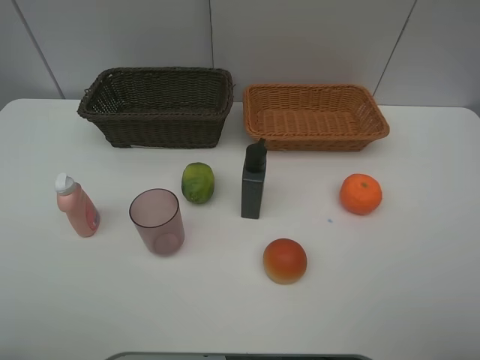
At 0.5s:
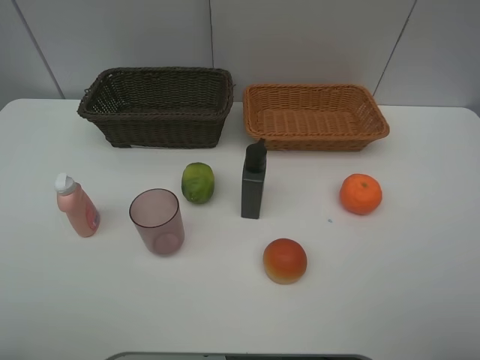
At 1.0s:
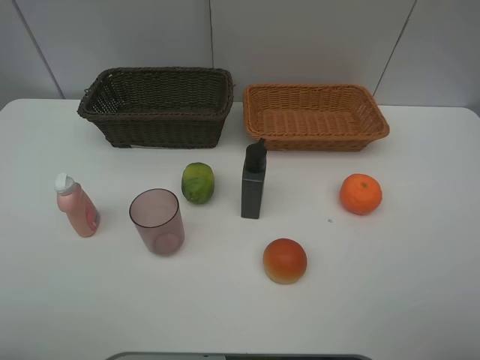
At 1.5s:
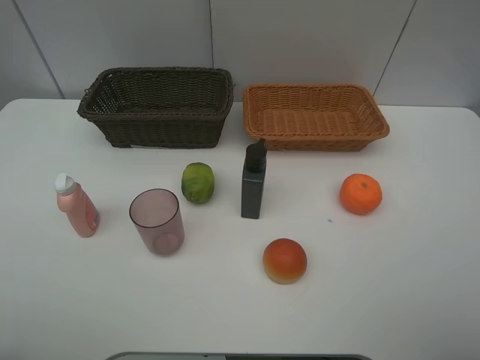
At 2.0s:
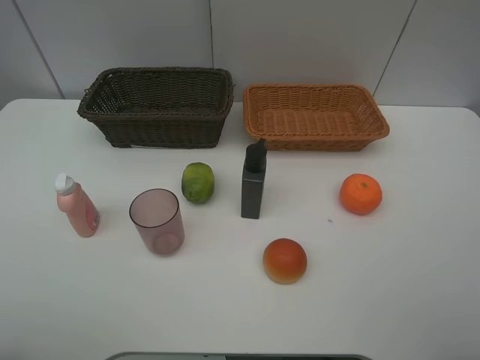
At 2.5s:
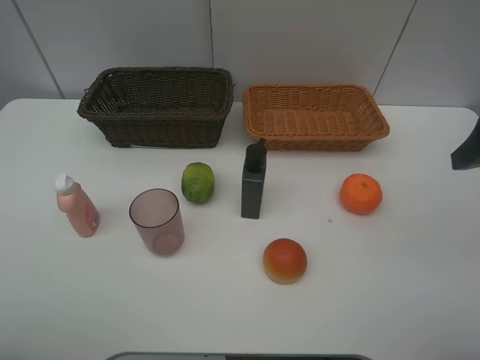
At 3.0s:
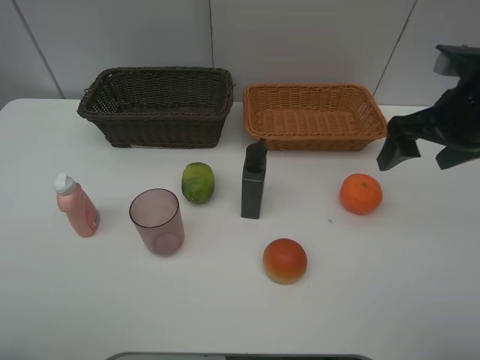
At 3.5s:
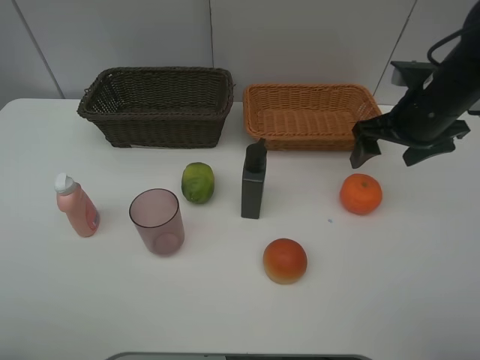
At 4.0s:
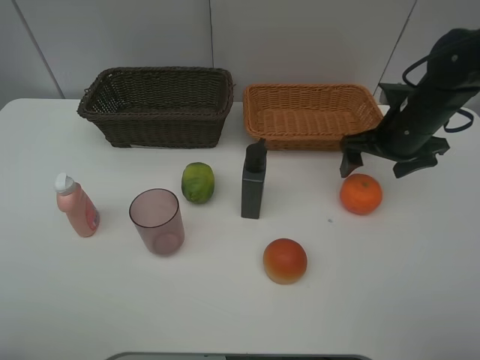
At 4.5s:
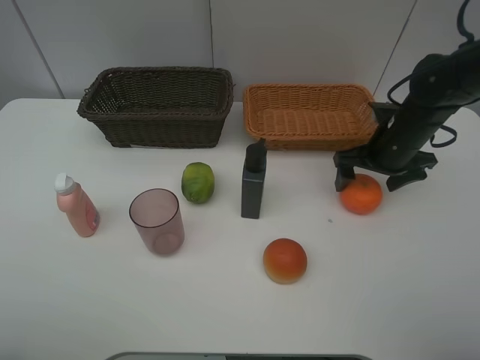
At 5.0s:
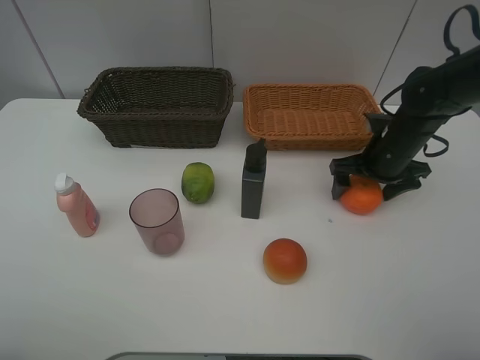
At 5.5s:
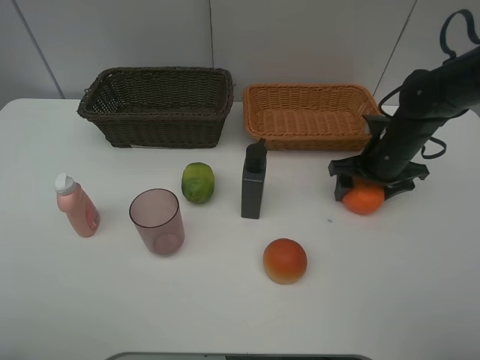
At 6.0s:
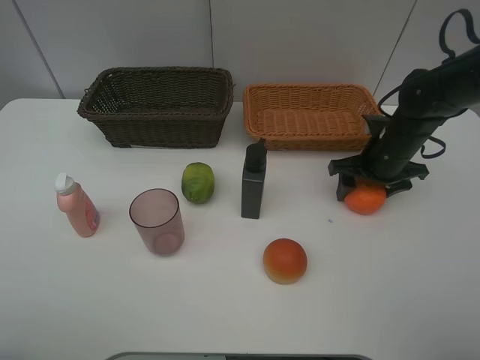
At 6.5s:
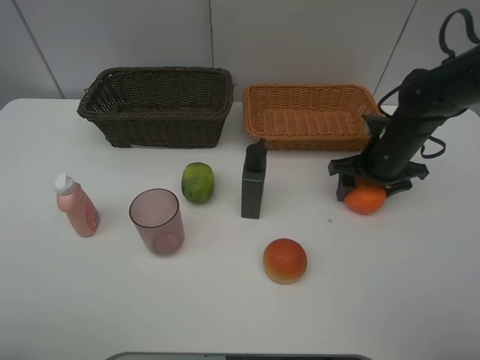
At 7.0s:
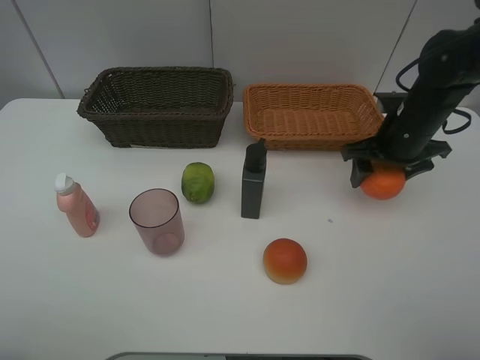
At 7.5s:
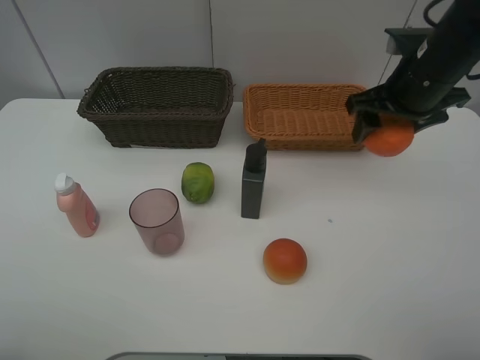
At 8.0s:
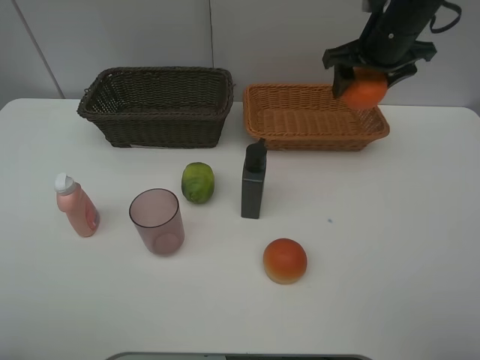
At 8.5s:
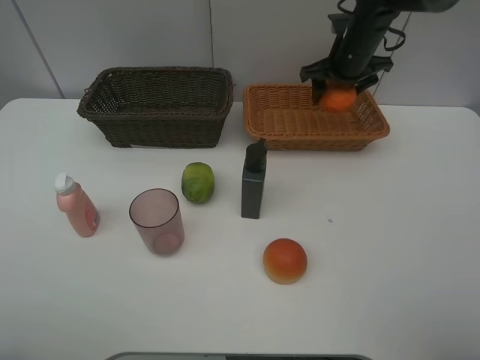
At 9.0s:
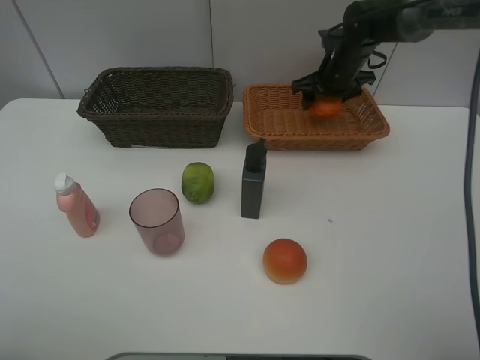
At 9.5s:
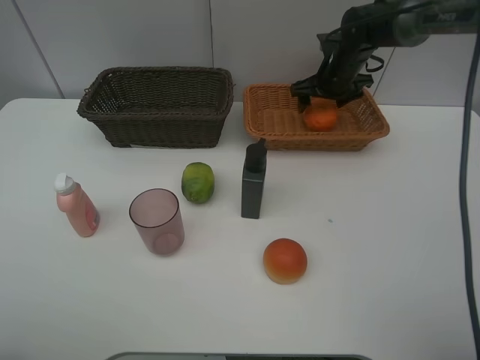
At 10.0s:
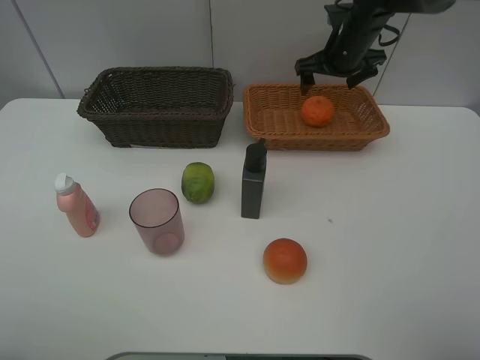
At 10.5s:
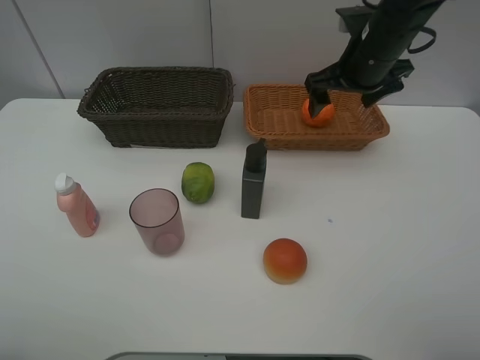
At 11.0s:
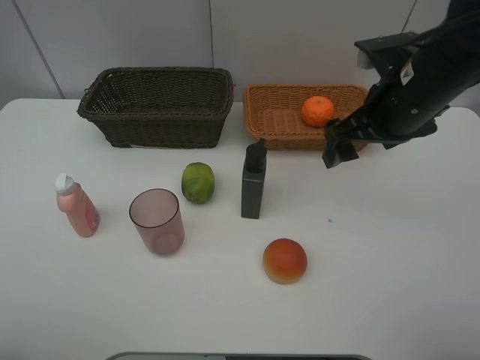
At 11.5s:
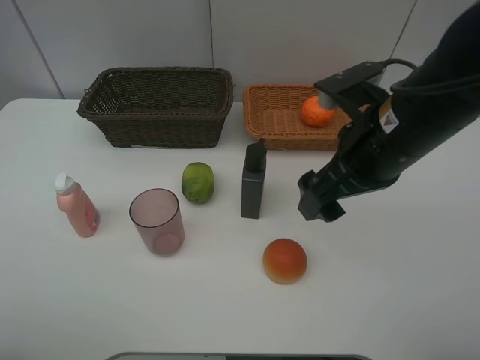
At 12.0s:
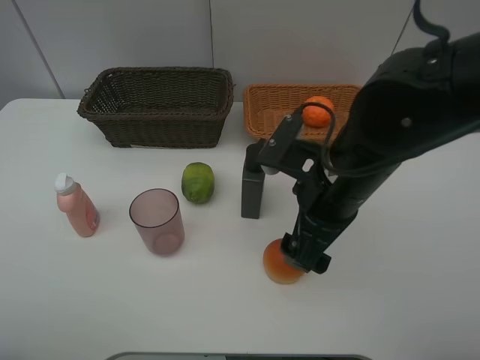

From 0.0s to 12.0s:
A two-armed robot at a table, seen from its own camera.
Task of the whole recording: place multiple objects separately in different baskets.
From 2.0s to 4.0s: The right gripper moves forward and downward, about 30 cm.
From 4.0s to 6.0s: The right gripper travels downward by about 5 cm, and closes its fingers.
From 6.0s to 8.0s: The right gripper travels upward by some 15 cm.
From 8.0s to 10.0s: The right gripper is displaced forward and downward by roughly 10 cm, and opens its fingers.
From 10.0s to 12.0s: The right gripper heads backward, covering roughly 30 cm.

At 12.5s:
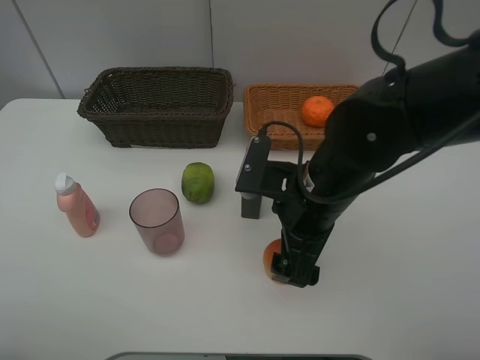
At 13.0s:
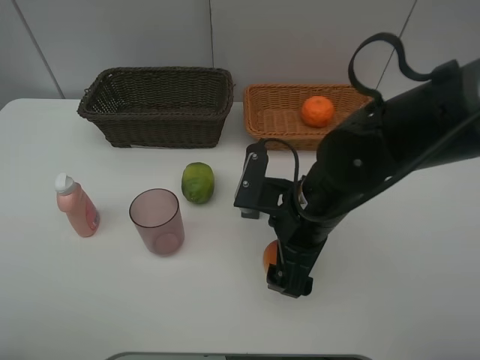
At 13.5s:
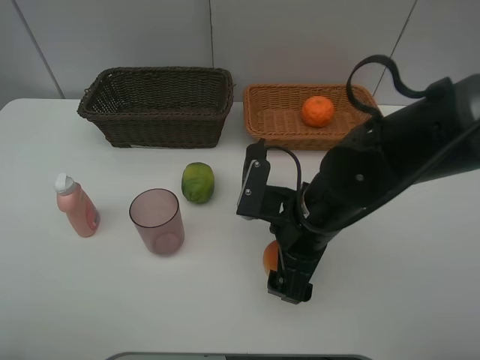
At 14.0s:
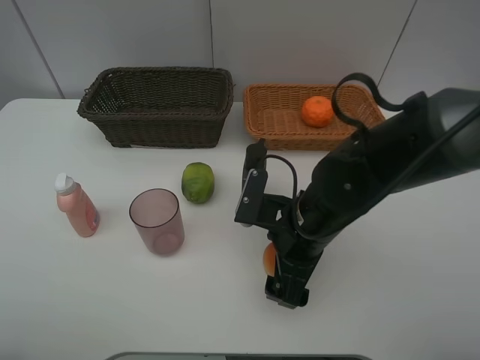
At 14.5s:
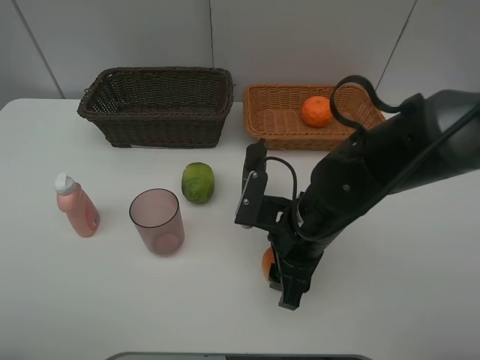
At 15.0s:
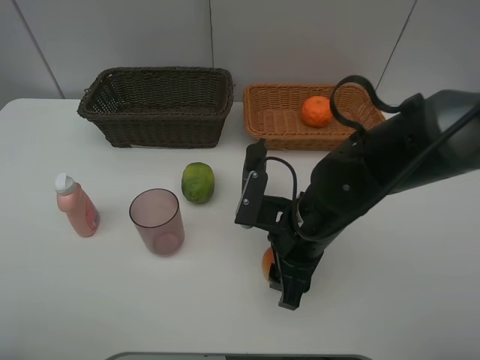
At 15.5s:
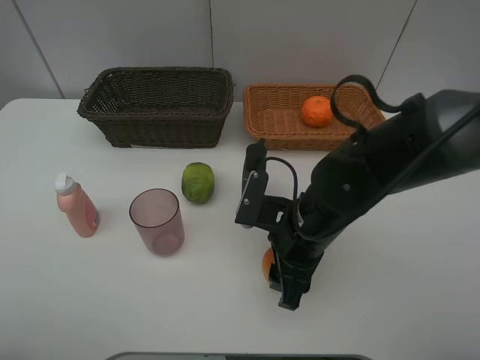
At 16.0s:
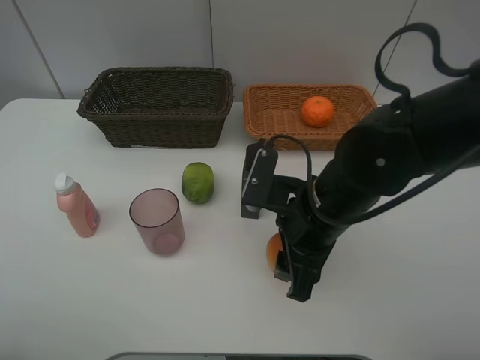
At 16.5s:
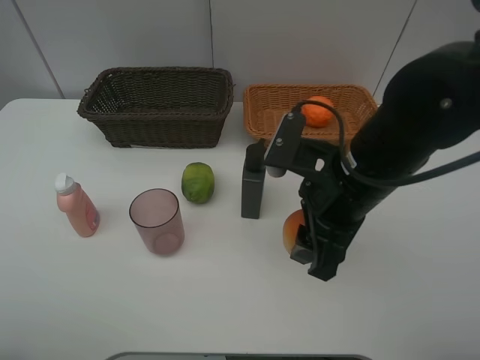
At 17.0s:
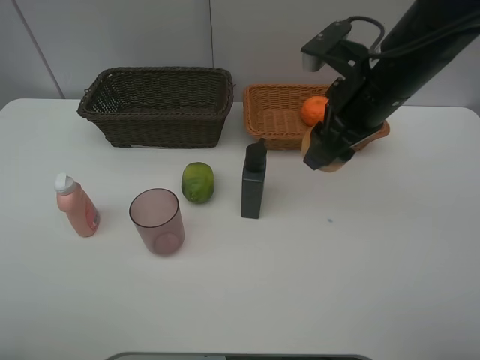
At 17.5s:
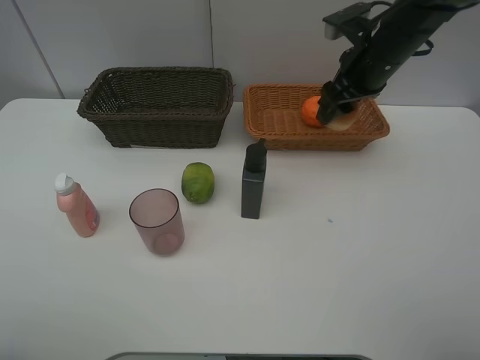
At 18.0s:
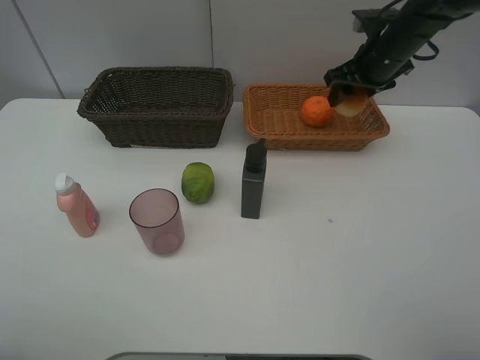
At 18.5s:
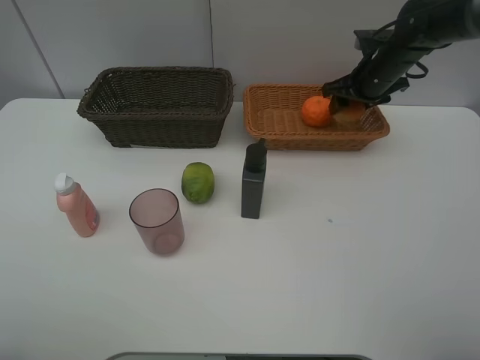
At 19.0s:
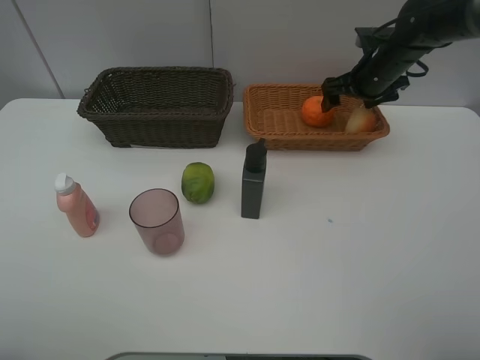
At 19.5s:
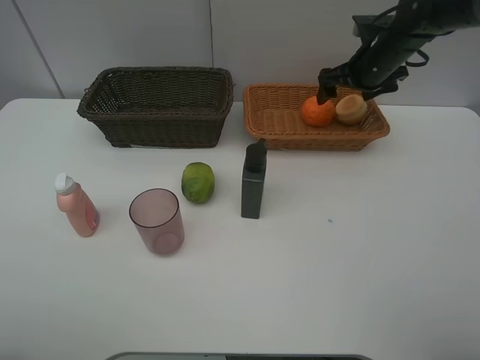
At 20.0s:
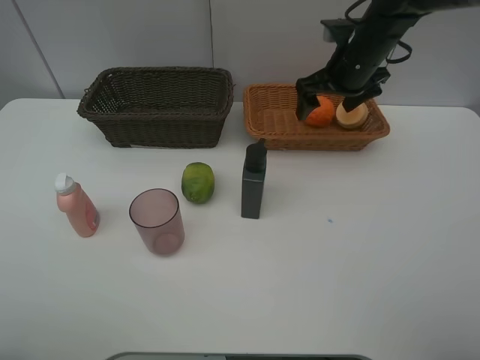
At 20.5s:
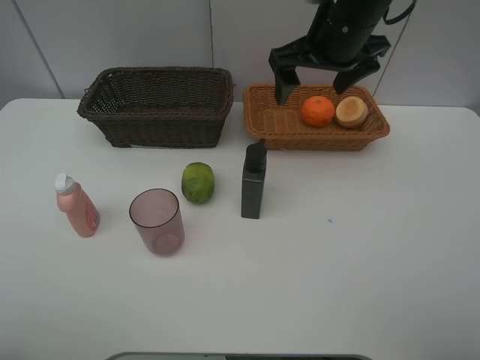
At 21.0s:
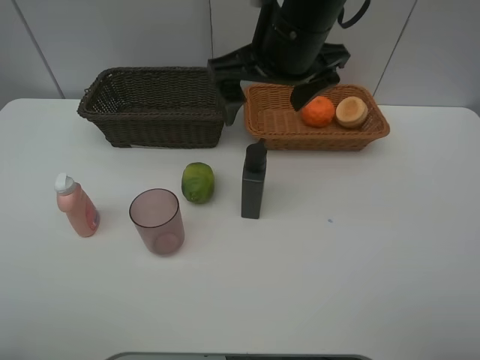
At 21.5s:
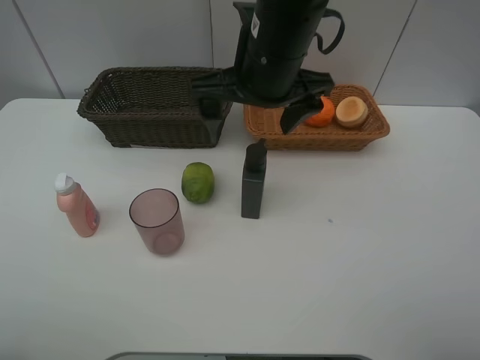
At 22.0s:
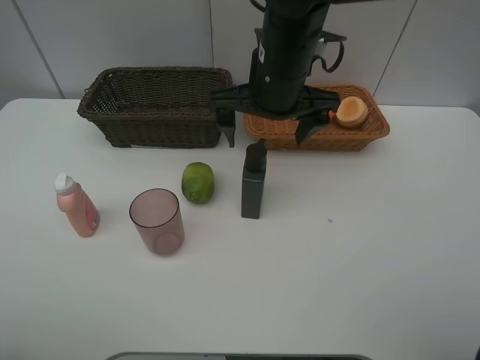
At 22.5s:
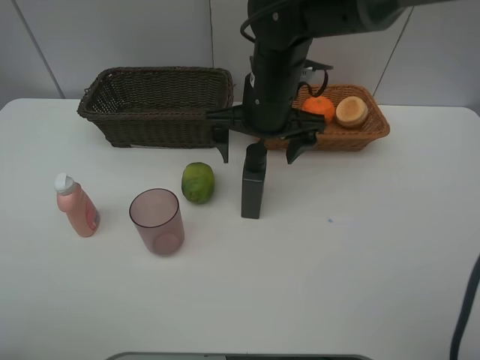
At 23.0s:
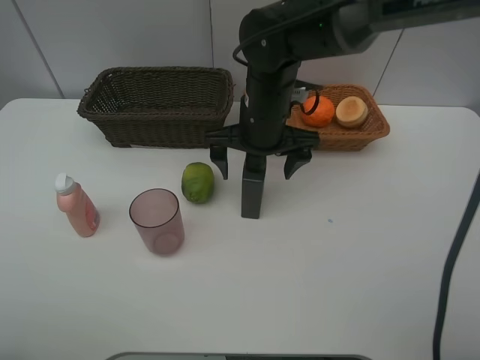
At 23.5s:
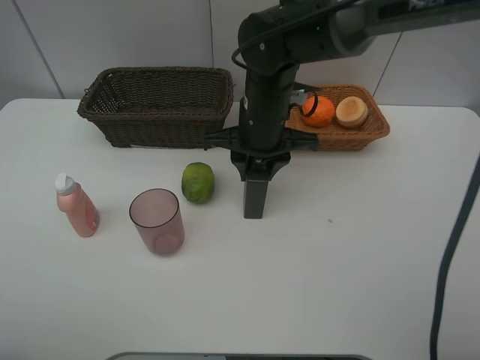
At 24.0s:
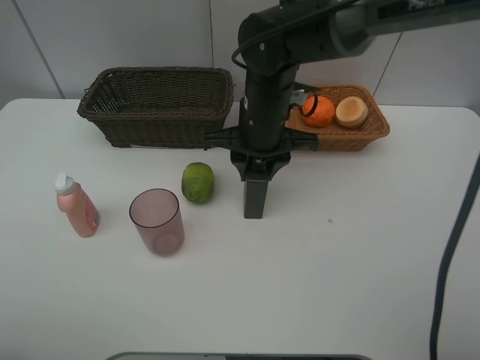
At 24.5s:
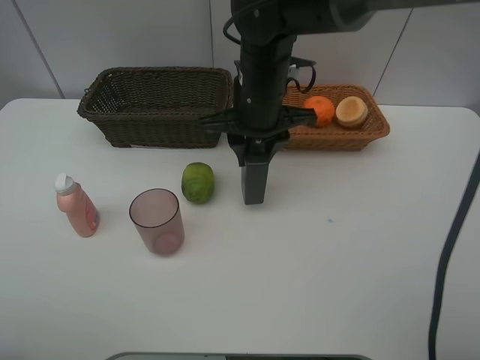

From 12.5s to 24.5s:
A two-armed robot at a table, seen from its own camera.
Task of the whole recording: place multiple objects separately in different baskets.
From 12.5s to 14.5s: The right gripper goes approximately 5 cm downward, and closes its fingers.
From 14.5s to 16.5s: The right gripper shifts about 10 cm upward.
From 16.5s to 18.5s: The right gripper goes some 30 cm forward and to the right.
From 18.5s to 20.5s: The right gripper moves to the left, upward and backward, roughly 20 cm, and opens up.
From 20.5s to 22.5s: The right gripper shifts roughly 10 cm downward and to the left.
From 22.5s to 24.5s: The right gripper closes its fingers.

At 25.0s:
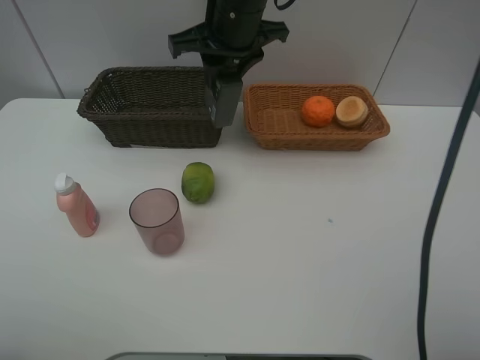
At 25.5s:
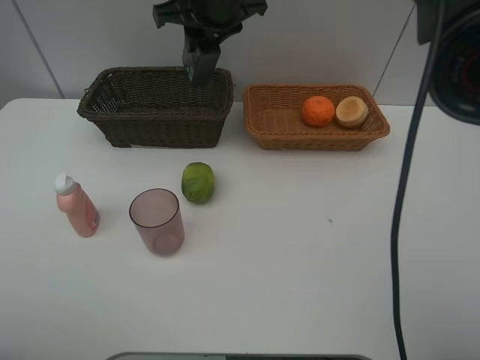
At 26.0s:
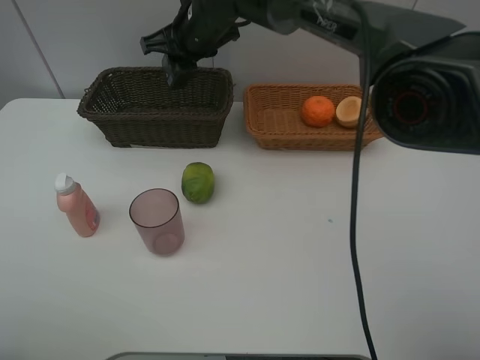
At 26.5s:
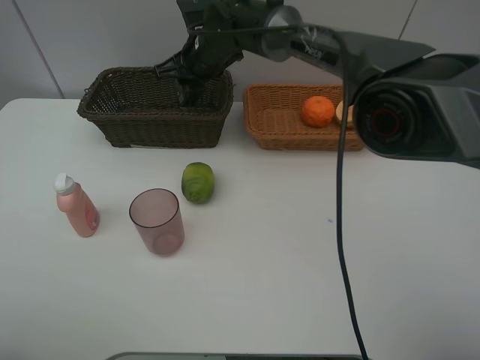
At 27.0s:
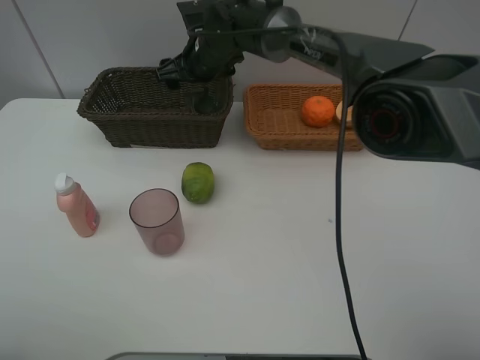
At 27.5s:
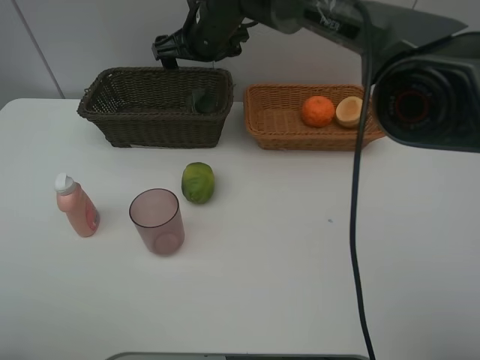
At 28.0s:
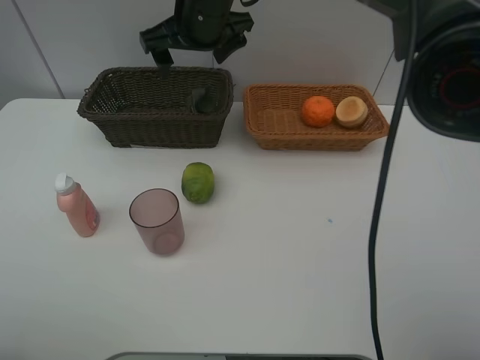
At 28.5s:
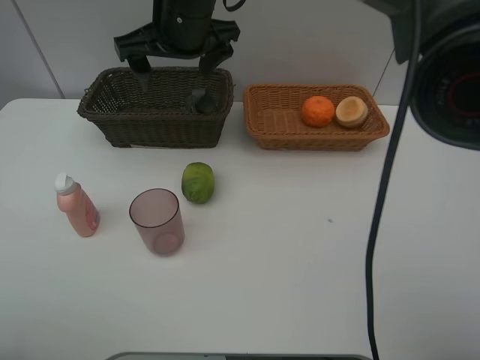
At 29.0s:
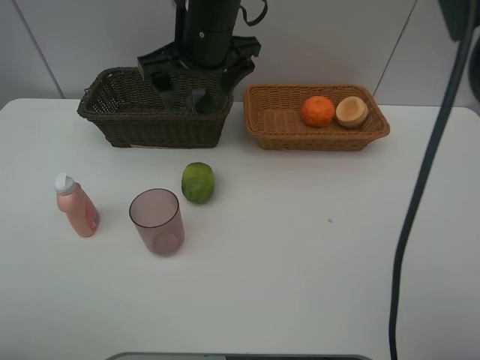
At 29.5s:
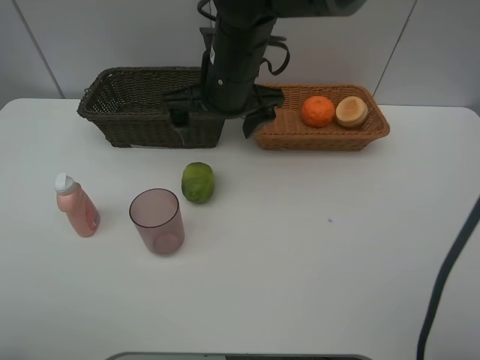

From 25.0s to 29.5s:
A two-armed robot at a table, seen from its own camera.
Task of the whole recording: place multiple objects separately in different baskets.
From 25.0s to 27.0s: The right gripper moves downward and forward, approximately 15 cm, and opens up.
From 27.0s to 29.5s: The right gripper travels backward by approximately 15 cm.
